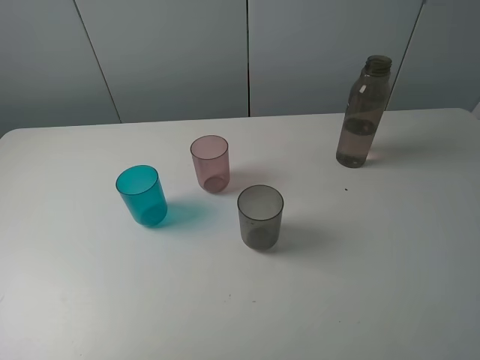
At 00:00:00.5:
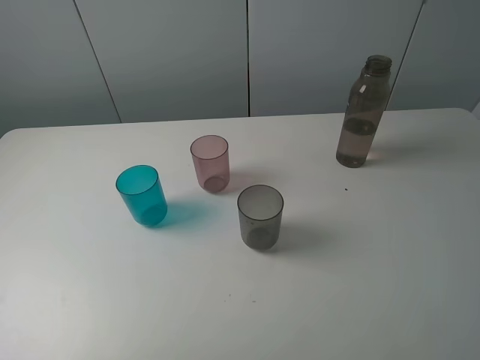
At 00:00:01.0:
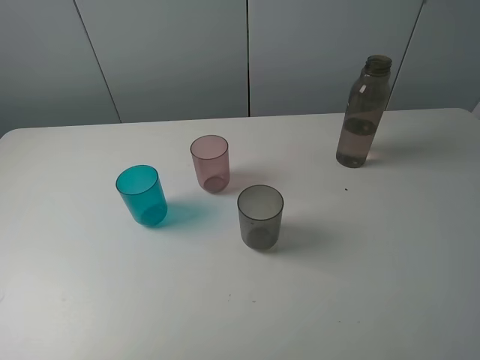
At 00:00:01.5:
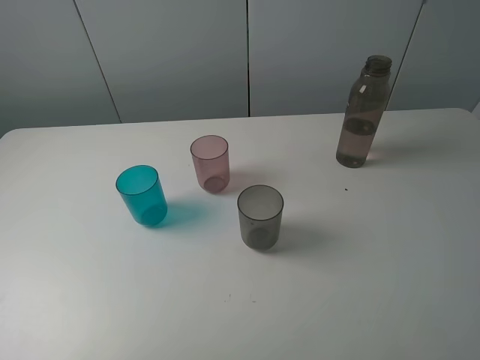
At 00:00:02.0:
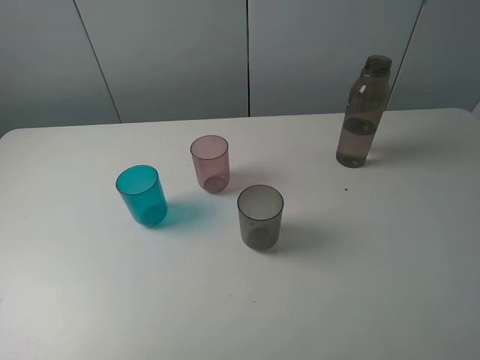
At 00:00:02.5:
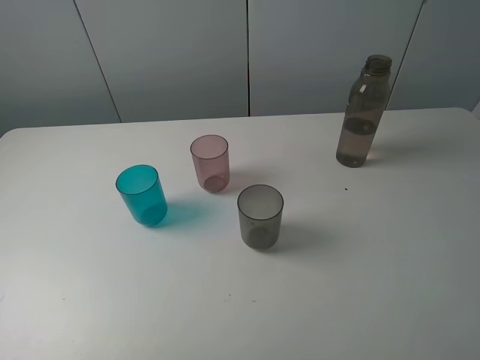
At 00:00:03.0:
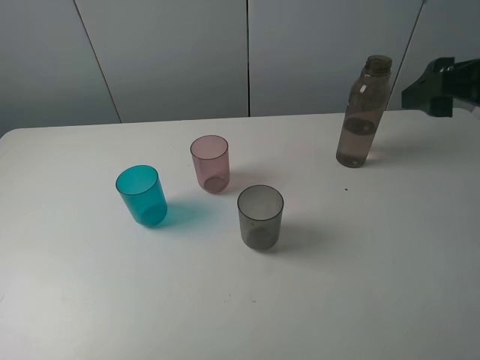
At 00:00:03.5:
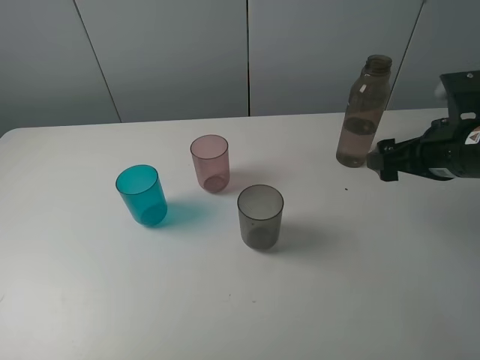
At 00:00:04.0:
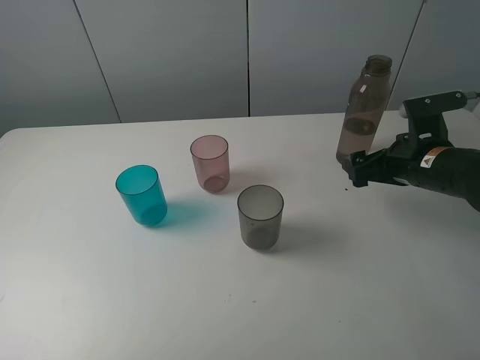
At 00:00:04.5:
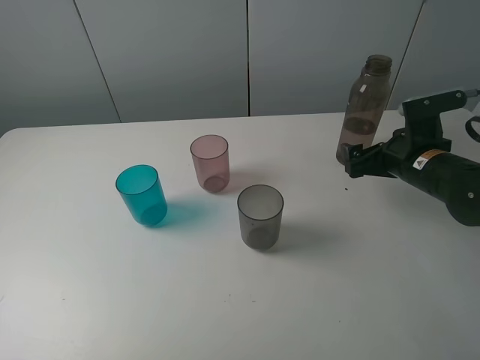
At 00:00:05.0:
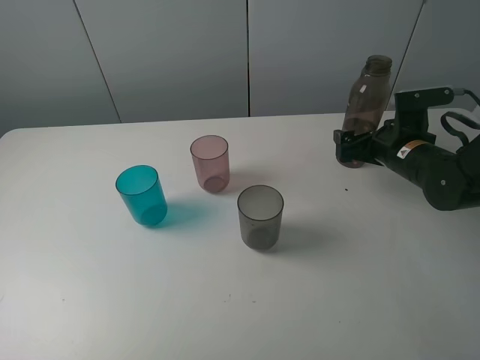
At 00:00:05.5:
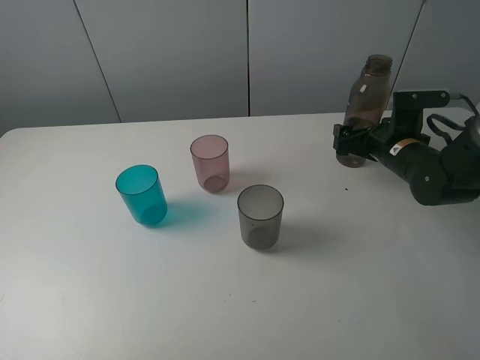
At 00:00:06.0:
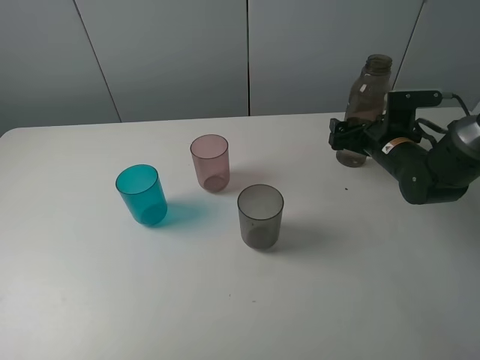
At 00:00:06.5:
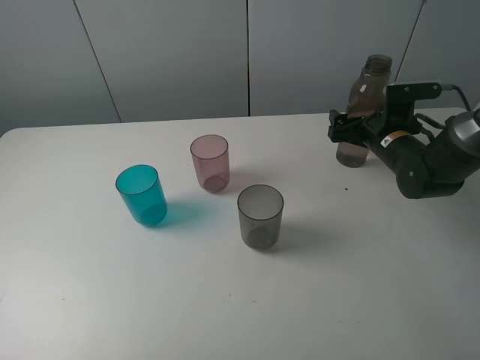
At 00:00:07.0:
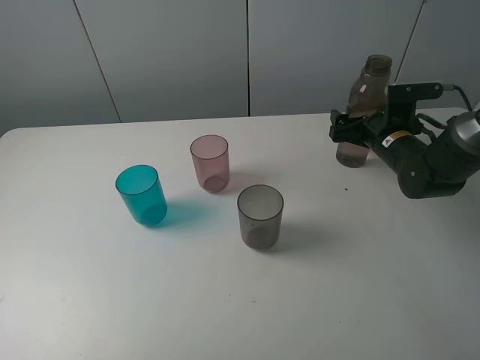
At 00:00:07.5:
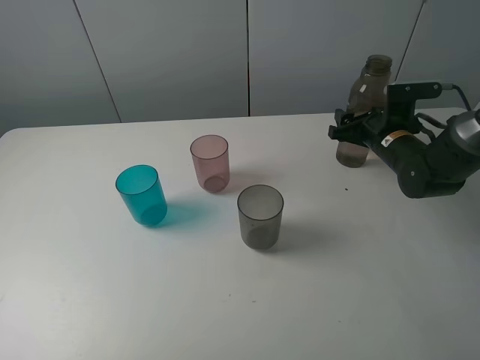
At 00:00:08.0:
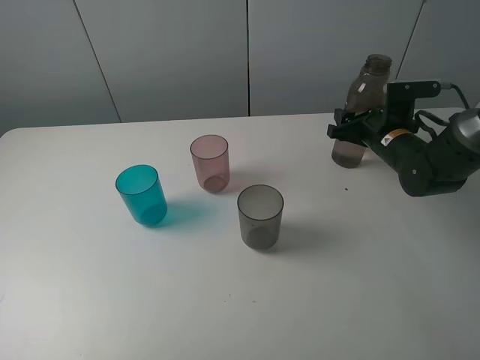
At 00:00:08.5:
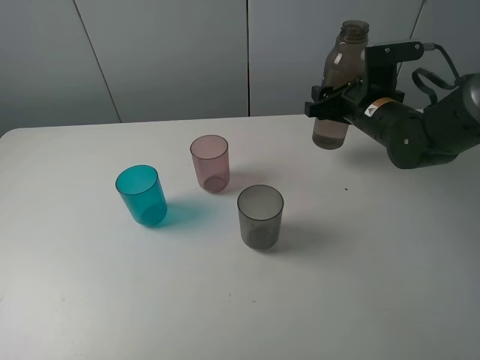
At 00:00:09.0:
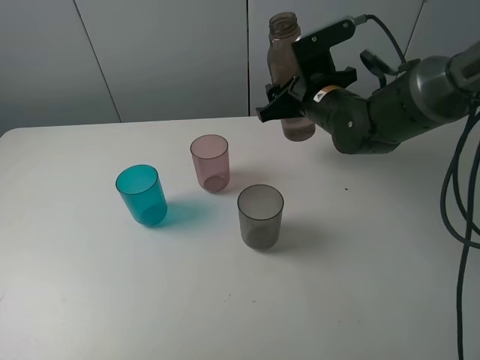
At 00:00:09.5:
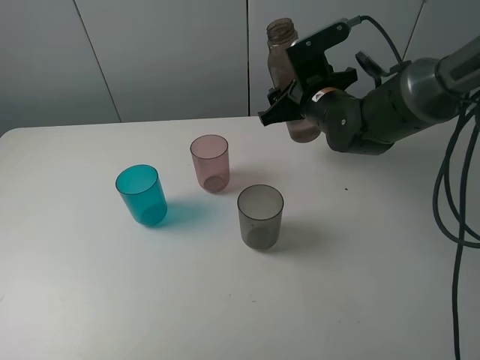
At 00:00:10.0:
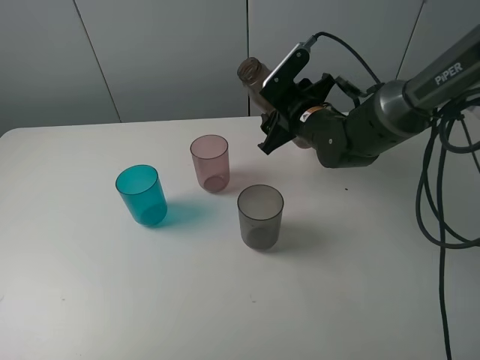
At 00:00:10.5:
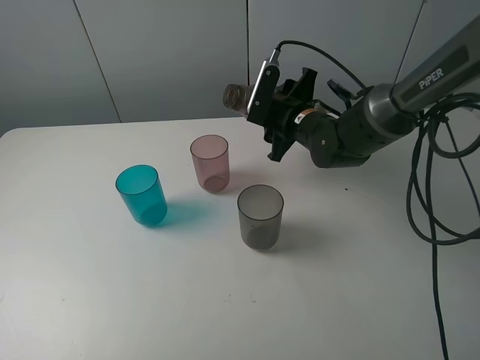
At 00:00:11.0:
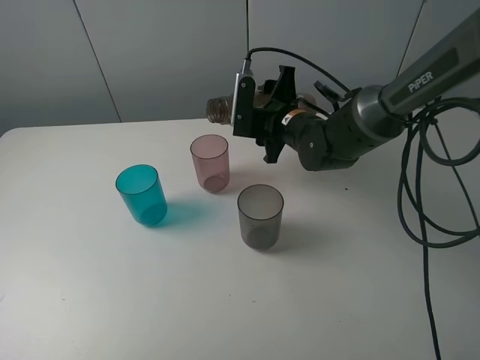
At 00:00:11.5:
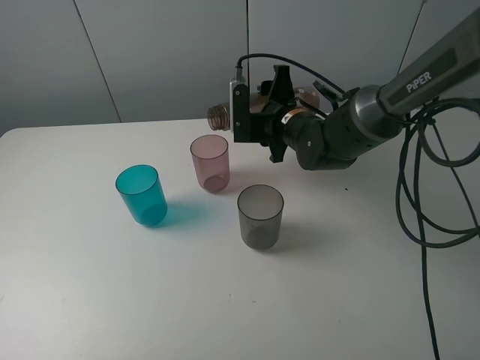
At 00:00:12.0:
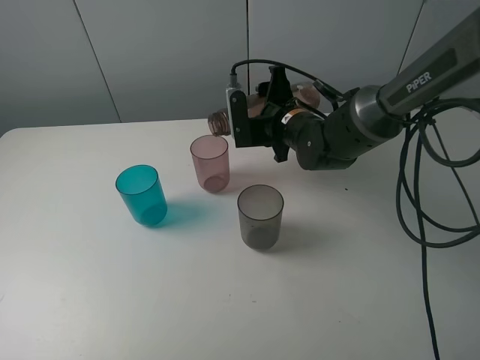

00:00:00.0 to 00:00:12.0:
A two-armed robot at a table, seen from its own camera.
Task of the whole recording: pick up the bottle filled with water and pour water into the middle cup of the three cups.
Step, 00:00:00.0 to 00:00:08.0: Grasp the brown bottle with the right gripper.
00:00:00.0 to 00:00:02.0: Both grippers stay about where they are.
00:00:02.0 to 00:00:04.0: The right gripper moves forward and downward, some 30 cm.
00:00:04.0 to 00:00:06.0: The right gripper shifts approximately 10 cm forward.
00:00:06.0 to 00:00:08.0: The right gripper closes its fingers.
00:00:08.0 to 00:00:10.0: The right gripper is displaced to the left by approximately 15 cm.

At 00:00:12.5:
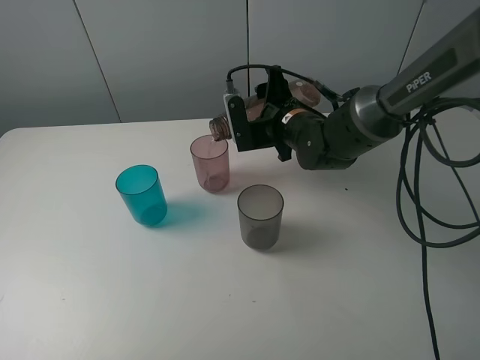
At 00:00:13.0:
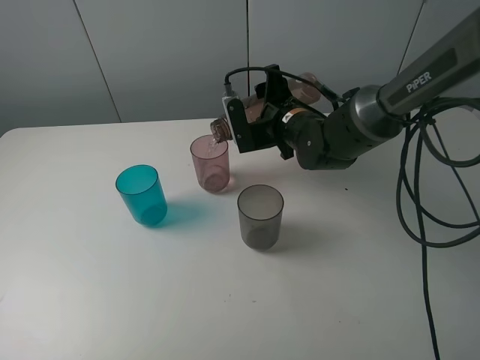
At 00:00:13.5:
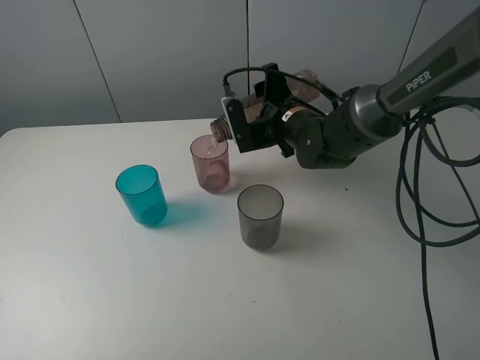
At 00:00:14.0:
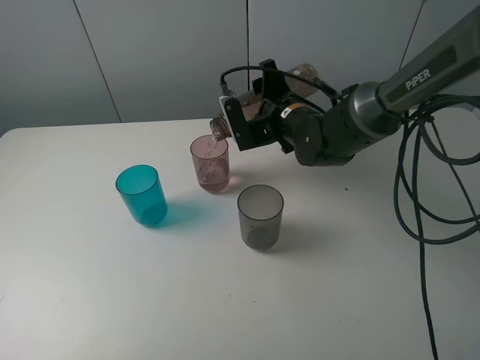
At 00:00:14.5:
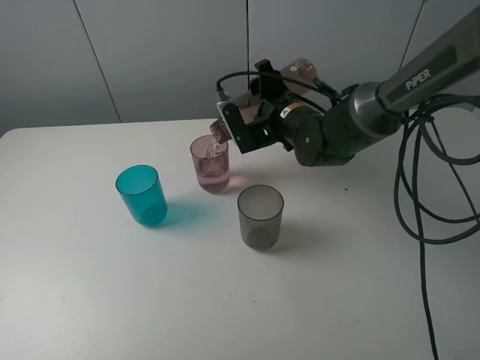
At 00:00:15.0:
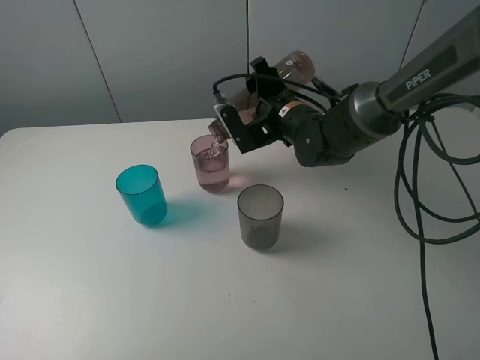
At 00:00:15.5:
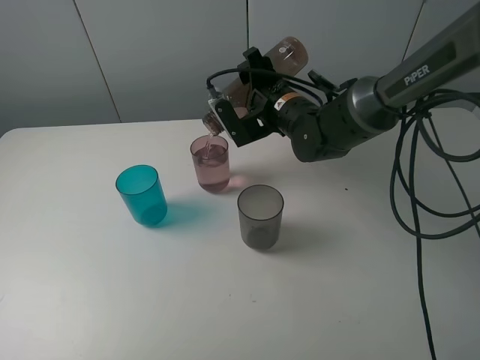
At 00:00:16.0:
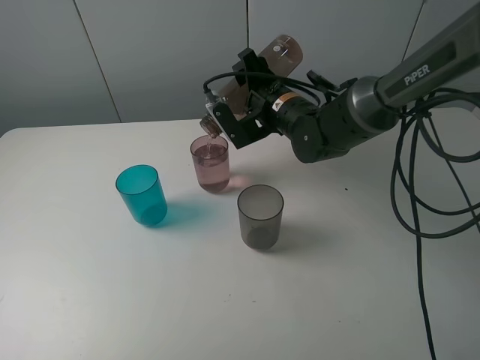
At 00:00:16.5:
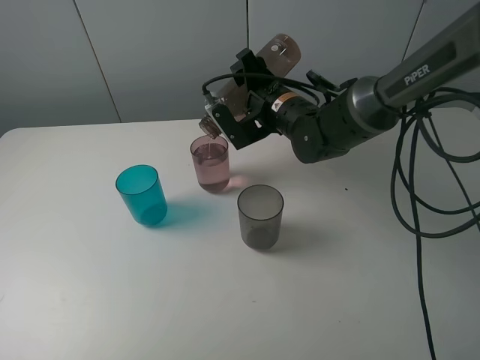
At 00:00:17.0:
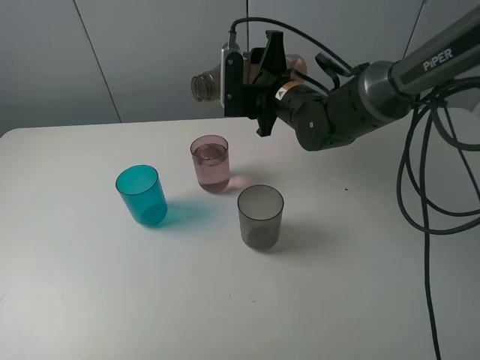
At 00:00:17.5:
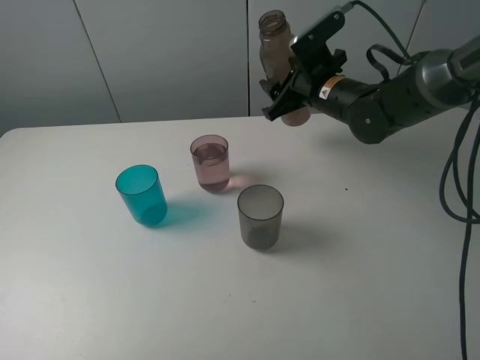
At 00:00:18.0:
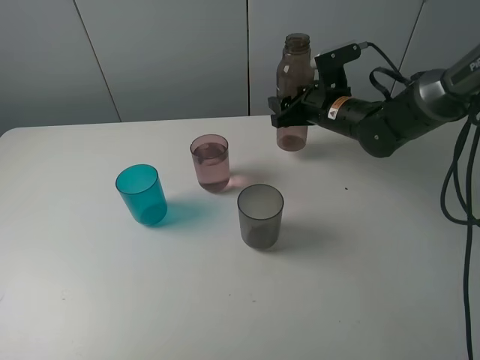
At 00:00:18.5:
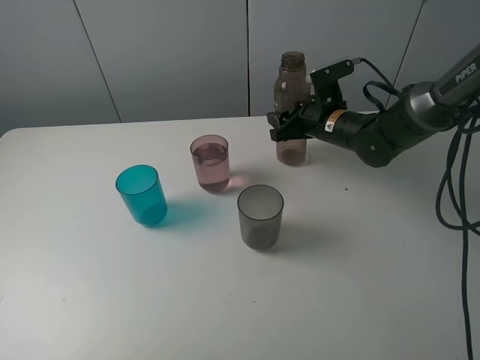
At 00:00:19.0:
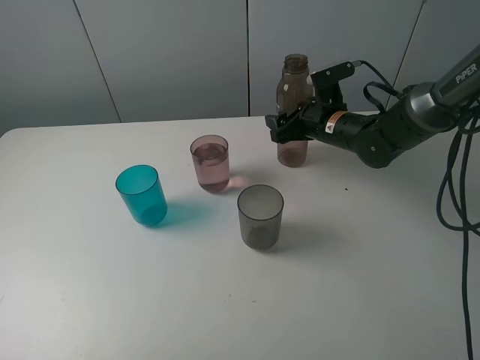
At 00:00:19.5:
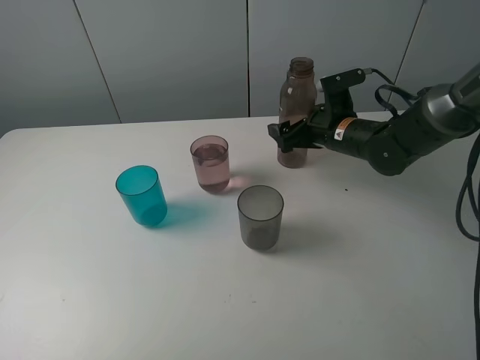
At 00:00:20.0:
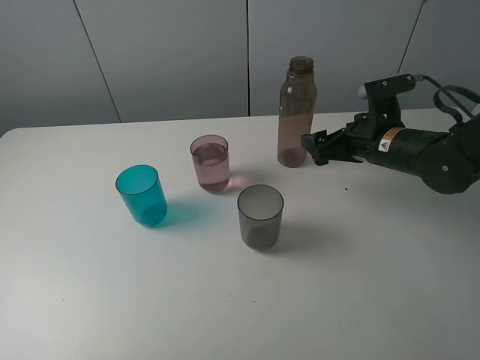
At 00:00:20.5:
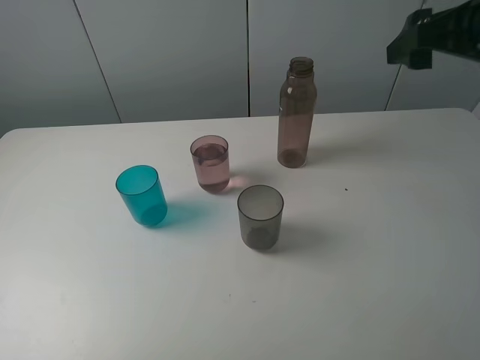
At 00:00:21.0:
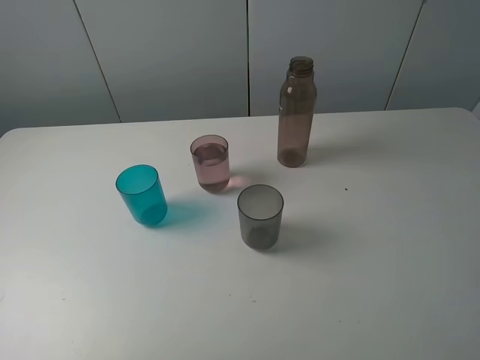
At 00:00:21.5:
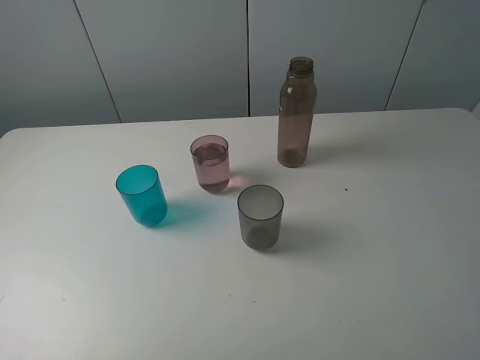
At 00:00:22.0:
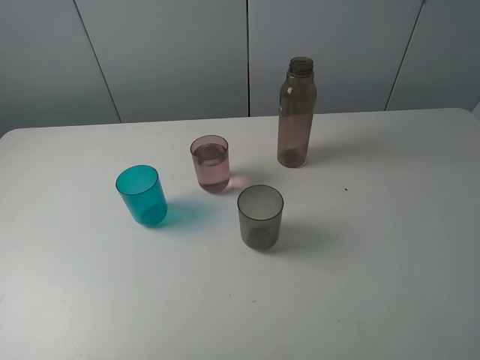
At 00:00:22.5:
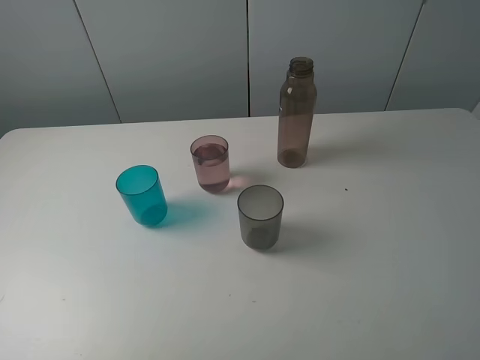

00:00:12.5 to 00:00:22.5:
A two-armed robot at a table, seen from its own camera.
Task of the whole recording: pick up the bottle filled with water and pour water into the middle cup of the three cups.
Step, 00:00:12.5 to 00:00:17.5: Pour water from brown bottle to red cup with the right gripper.
Step, 00:00:18.0 to 00:00:20.5: Place the brown bottle with the right gripper.
00:00:12.5 to 00:00:14.5: The grippers move only a little.
00:00:14.5 to 00:00:16.5: The grippers make only small movements.
00:00:16.5 to 00:00:18.5: The right gripper shifts approximately 10 cm to the right.
00:00:18.5 to 00:00:20.5: The right gripper travels upward, backward and to the right by some 30 cm, and opens its fingers.
00:00:20.5 to 00:00:22.5: The right gripper moves backward, roughly 25 cm.

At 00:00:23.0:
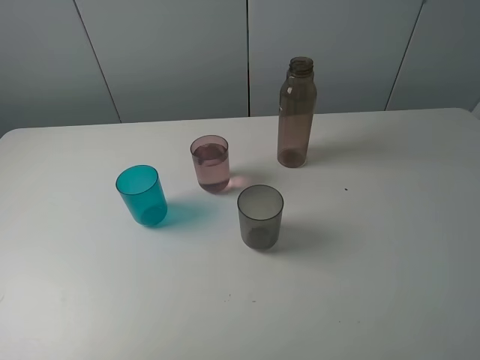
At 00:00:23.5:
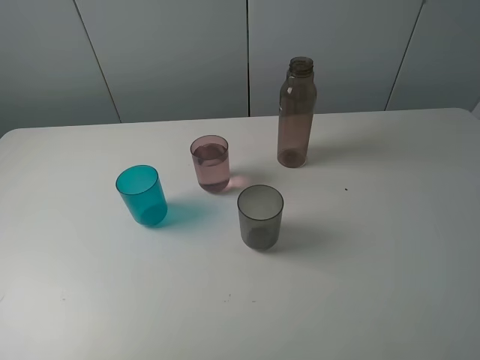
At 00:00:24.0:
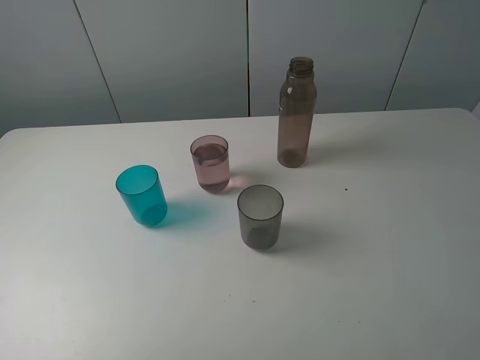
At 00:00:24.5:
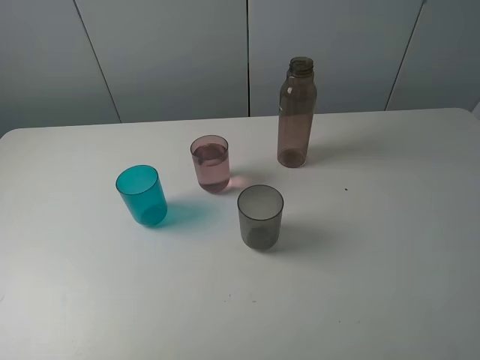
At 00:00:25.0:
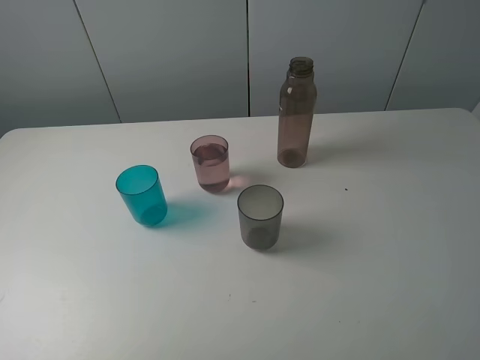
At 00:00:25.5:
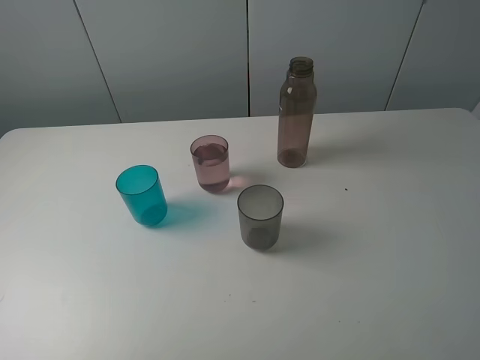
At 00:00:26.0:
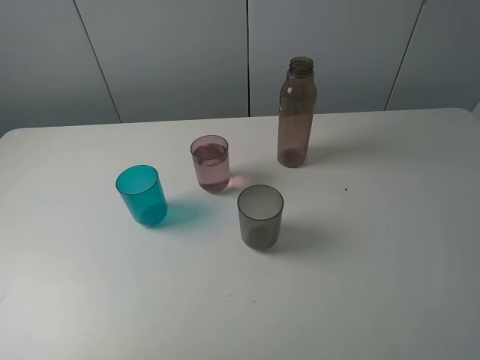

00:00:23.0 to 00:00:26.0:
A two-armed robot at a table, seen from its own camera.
Task of the whole recording: pick up the bottle filled with water and pour water into the middle cup of the three cups.
00:00:24.5 to 00:00:26.0: Both grippers stay about where they are.
